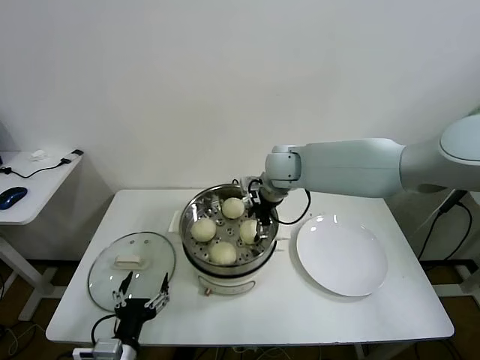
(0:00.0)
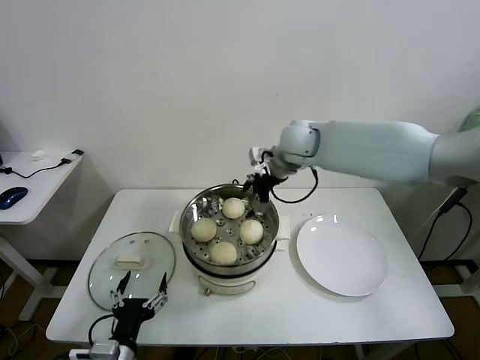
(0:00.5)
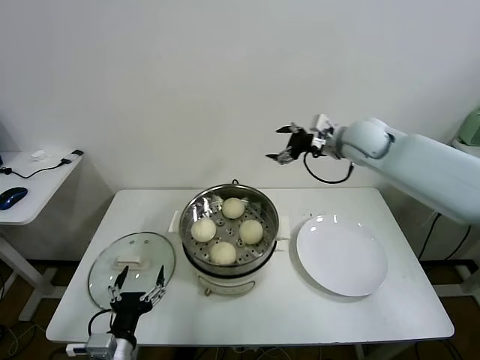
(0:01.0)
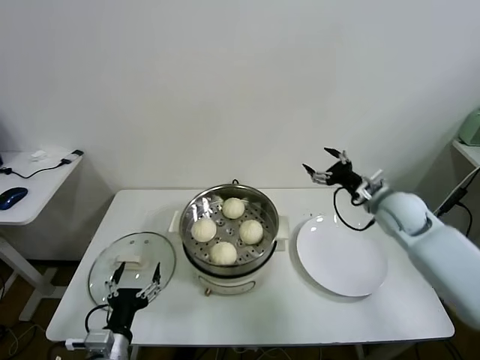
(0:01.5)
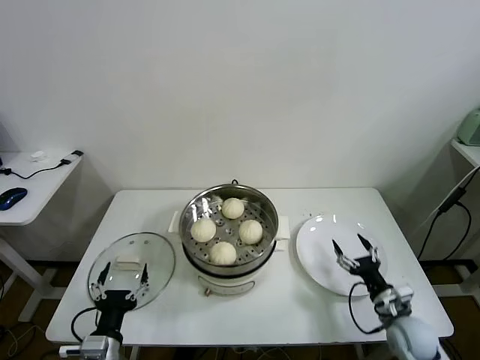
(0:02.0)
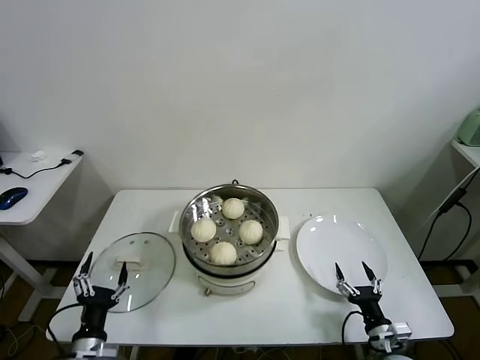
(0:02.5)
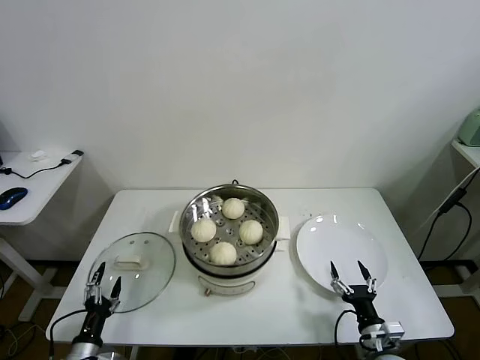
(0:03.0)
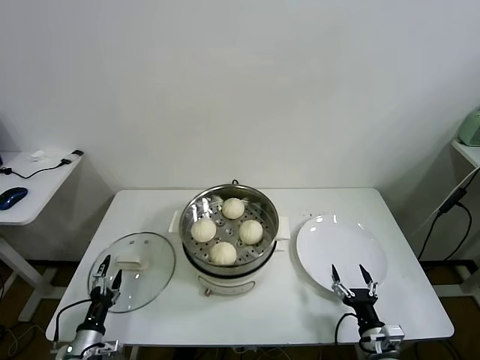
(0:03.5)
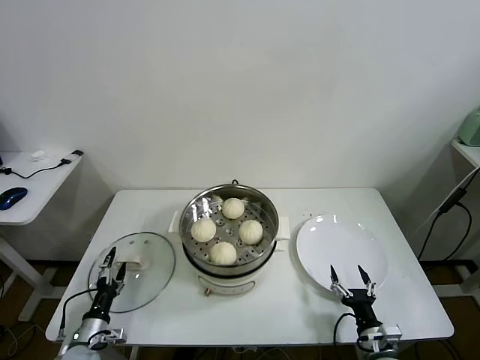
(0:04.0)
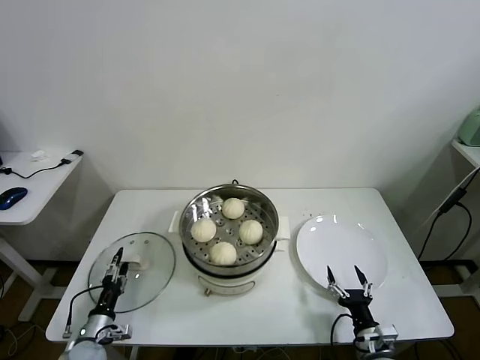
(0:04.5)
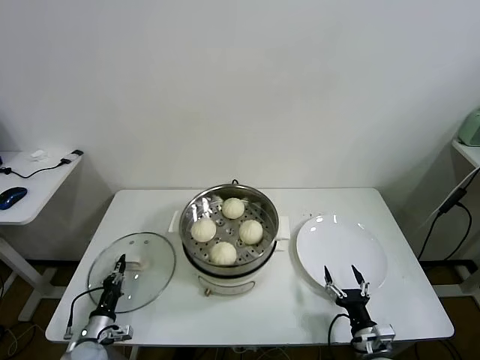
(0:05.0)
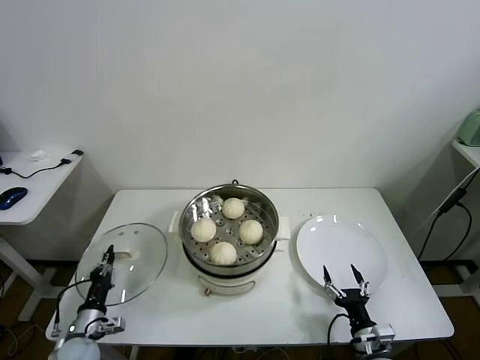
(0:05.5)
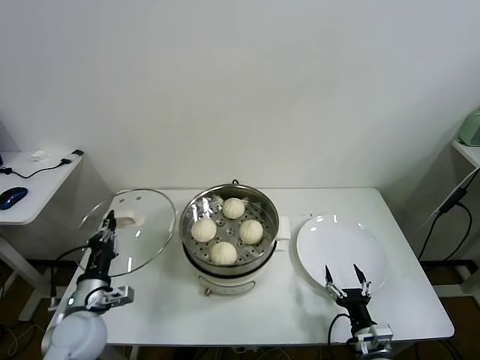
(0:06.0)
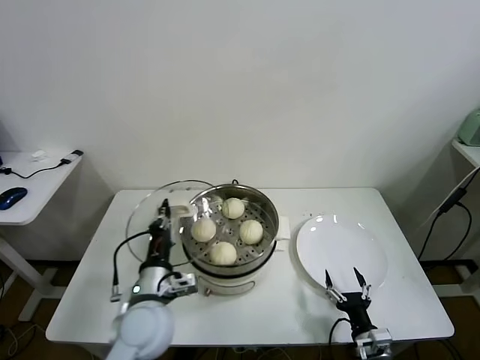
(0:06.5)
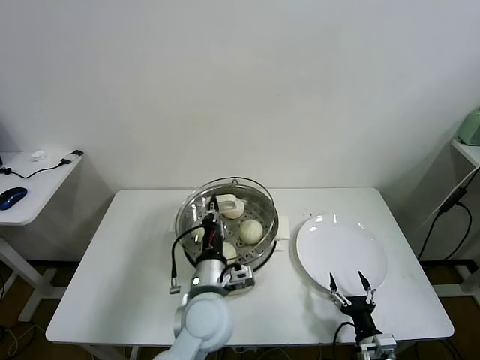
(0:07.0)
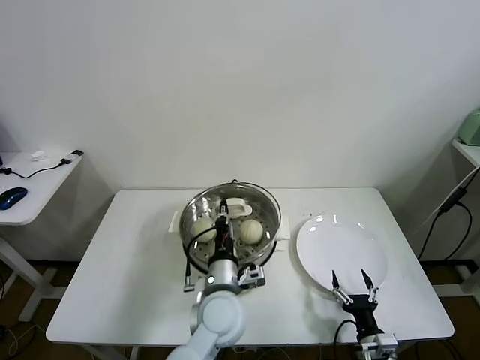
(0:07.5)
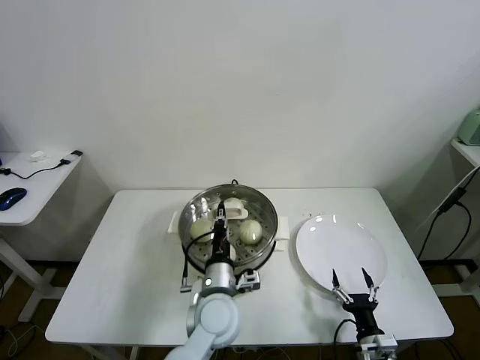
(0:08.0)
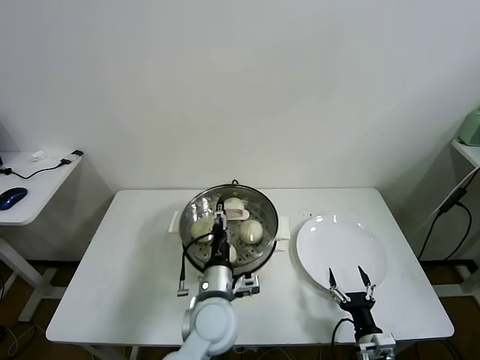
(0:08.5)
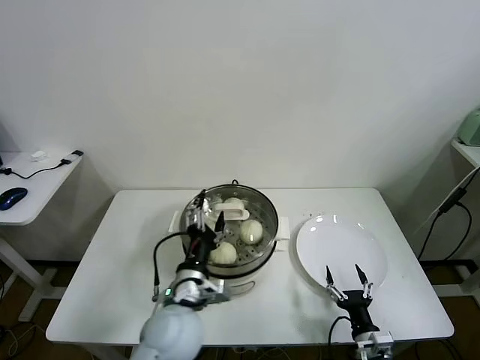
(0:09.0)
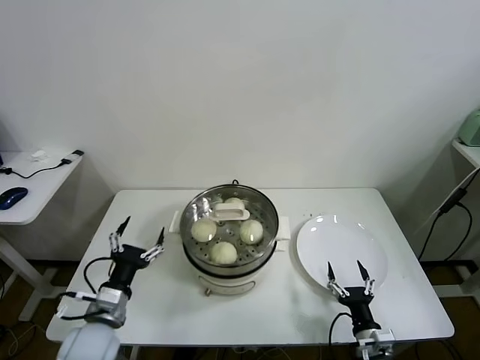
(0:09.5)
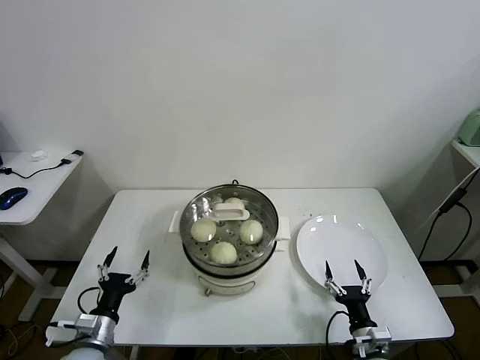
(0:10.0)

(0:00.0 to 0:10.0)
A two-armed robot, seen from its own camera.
Task of the whole recording: take steamed baozi put them in steamer.
Step, 0:00.5 - 0:05.0: Grasp the pot lid with left gripper.
Step, 0:05.5 - 0:08.0: Place the pot lid on the steamer with left gripper.
0:00.0 - 0:02.0: The right gripper travels downward, to the right and backward by some 50 cm.
0:02.0 - 0:04.0: The left gripper goes approximately 20 cm downward, to the left and forward. Meanwhile the right gripper goes roughly 10 cm backward and to the left.
0:04.0 - 0:06.0: The left gripper shifts some 15 cm upward, and closes its fingers.
0:06.0 - 0:08.0: The left gripper travels to the right by approximately 30 cm.
0:08.0 - 0:10.0: The left gripper travels to the left by approximately 30 cm, and opens its fingers.

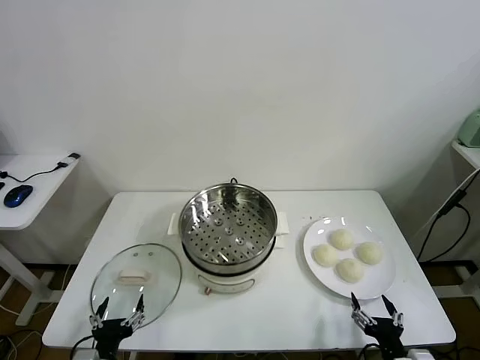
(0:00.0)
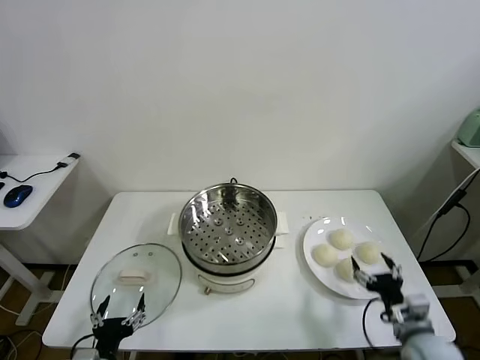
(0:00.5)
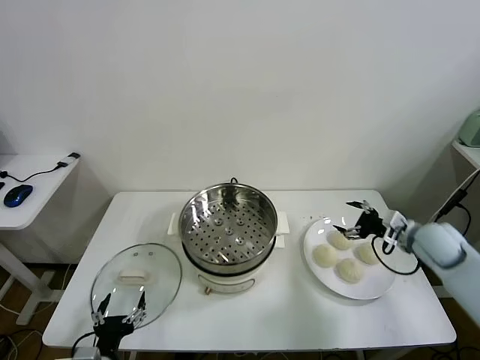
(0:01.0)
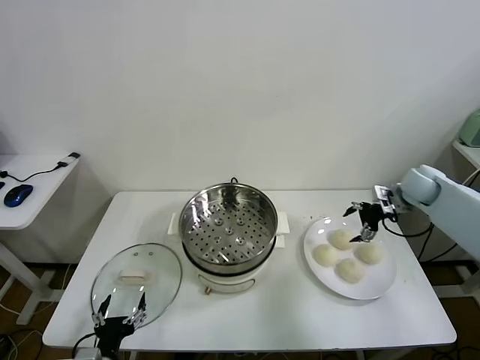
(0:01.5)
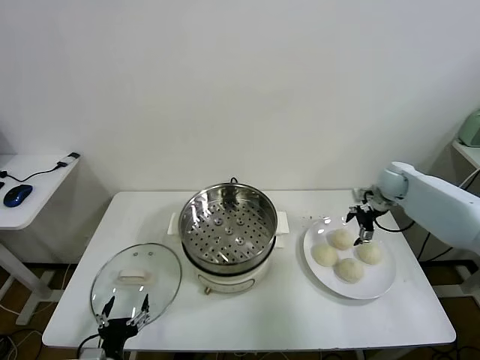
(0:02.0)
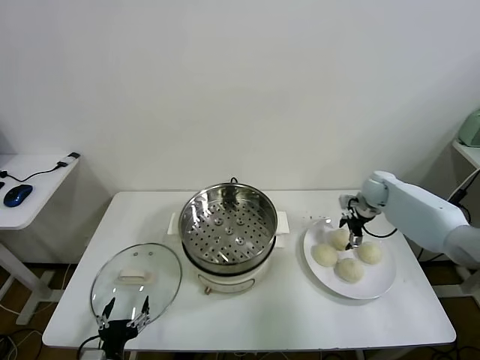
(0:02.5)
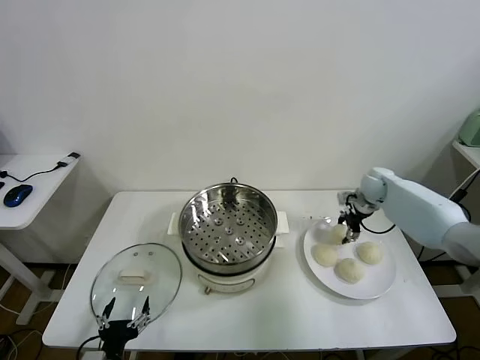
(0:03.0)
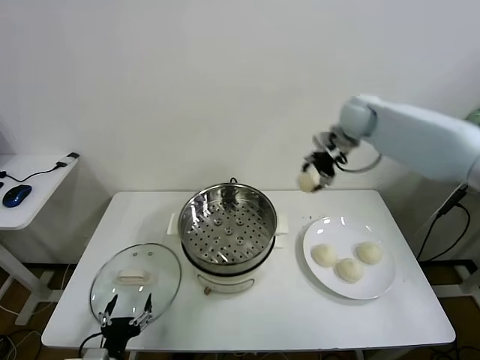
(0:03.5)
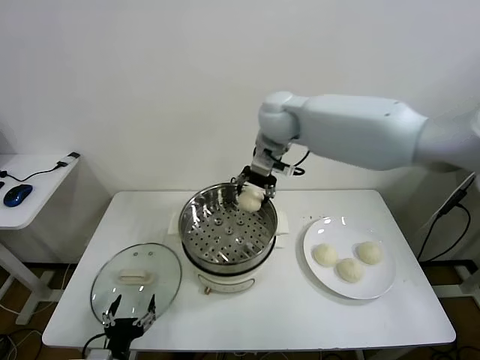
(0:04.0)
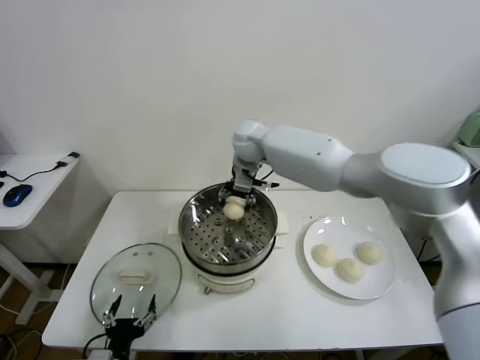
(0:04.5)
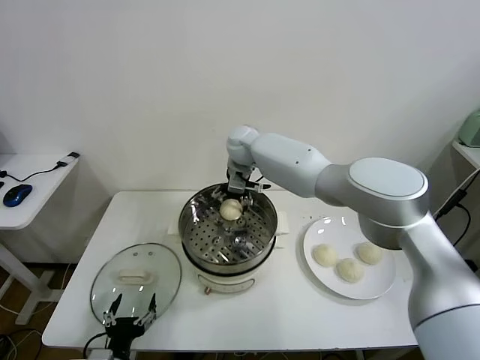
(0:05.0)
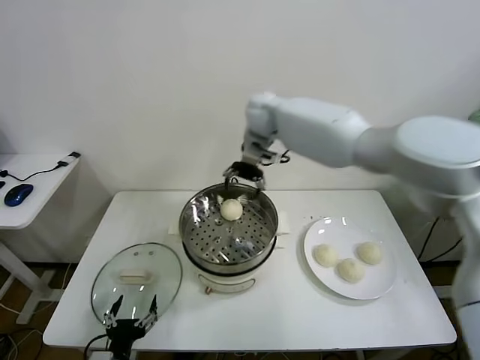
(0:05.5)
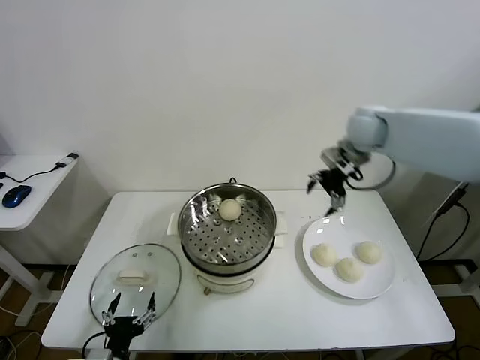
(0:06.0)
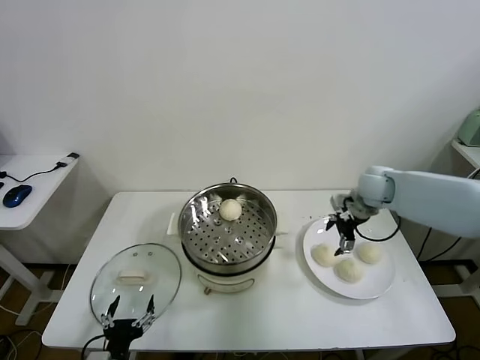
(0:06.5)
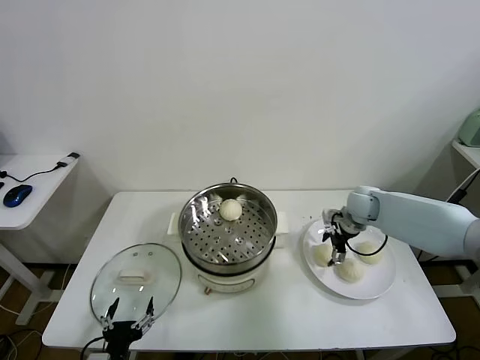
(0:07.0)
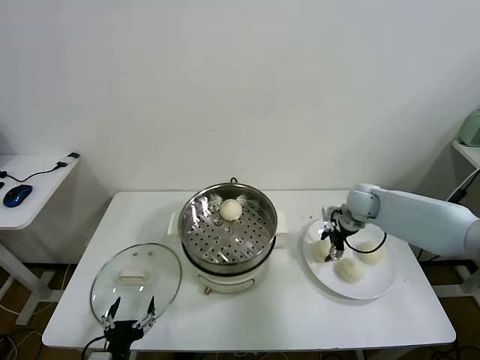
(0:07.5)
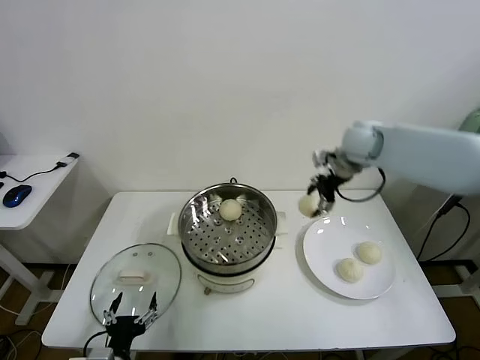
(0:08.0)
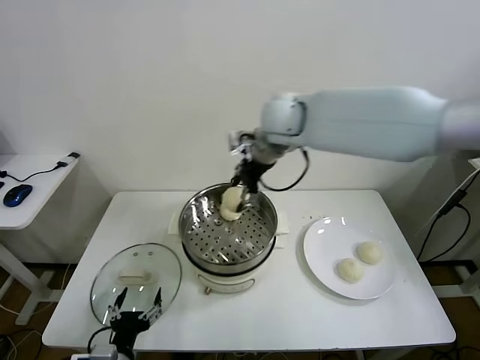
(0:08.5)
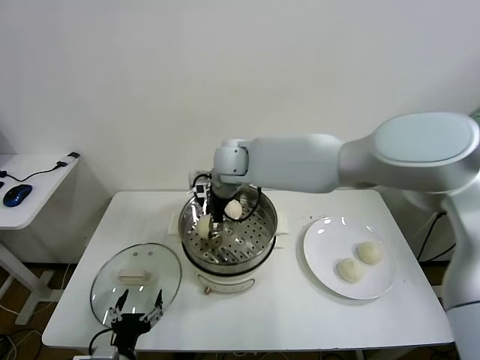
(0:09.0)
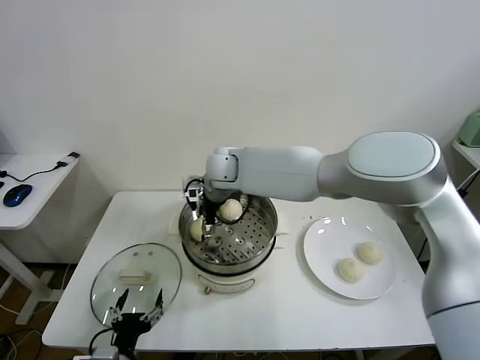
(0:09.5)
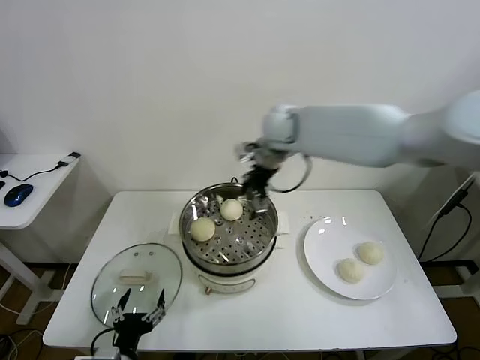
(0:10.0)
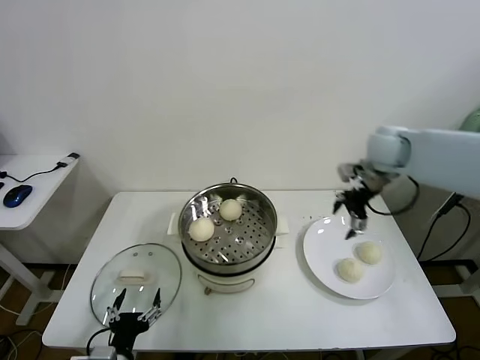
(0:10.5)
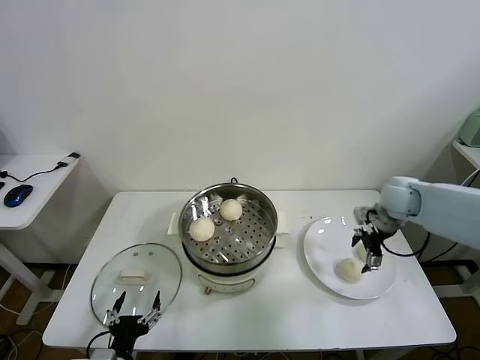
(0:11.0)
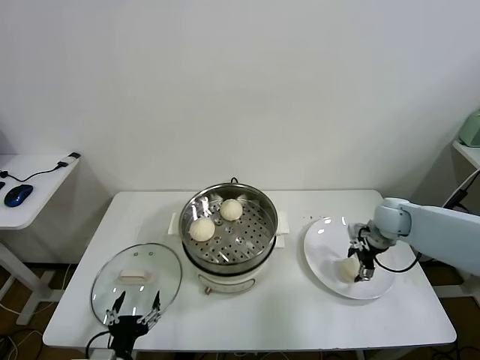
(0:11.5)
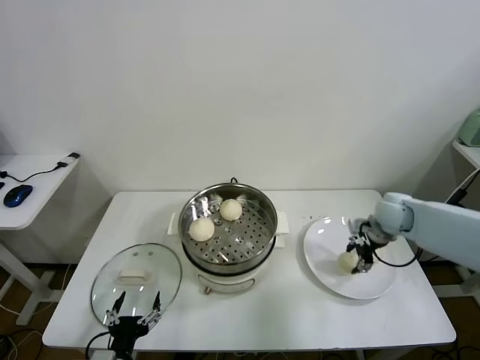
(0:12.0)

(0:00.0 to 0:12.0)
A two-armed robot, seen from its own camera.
Task of the whole recording: take steamed baozi put them in steamer.
Step, 0:00.0 - 0:03.0: Grasp the baozi in the plate with right gripper.
Step, 0:03.5 - 0:05.0: Place the baozi on the steamer with right gripper.
Step, 0:05.5 - 0:07.5: Grasp the baozi in the plate with right gripper.
Step, 0:08.0 - 0:09.5: Place the baozi on the steamer with right gripper.
Step, 0:10.0 - 0:11.5: Grasp the baozi in the plate with right gripper.
0:02.0 - 0:04.0: The right gripper travels to the left and upward by roughly 40 cm, and closes its fingers.
0:04.0 - 0:06.0: The right gripper is displaced to the right by about 25 cm, and opens up.
0:06.0 - 0:08.0: The right gripper goes roughly 5 cm to the left, reaches approximately 20 cm downward, then returns, and closes its fingers.
0:08.0 - 0:10.0: The right gripper shifts about 10 cm to the left, and opens.
0:10.0 - 0:12.0: The right gripper goes roughly 30 cm to the right and downward, and closes up.

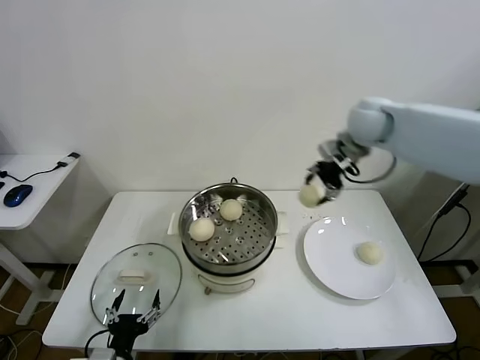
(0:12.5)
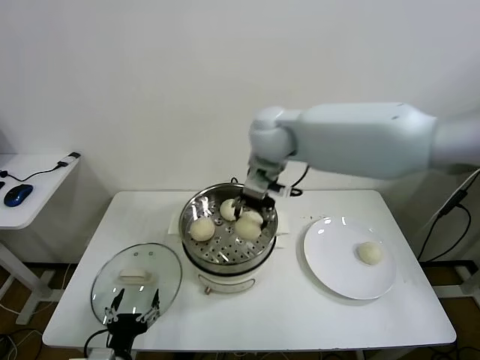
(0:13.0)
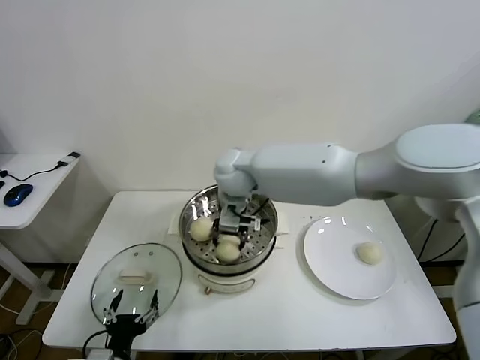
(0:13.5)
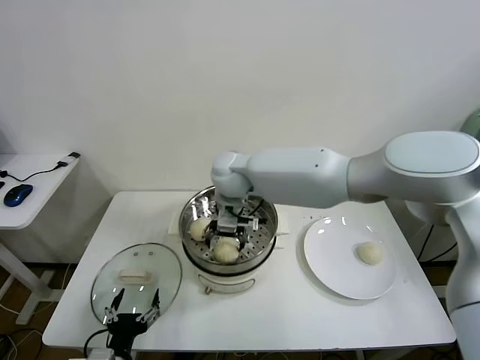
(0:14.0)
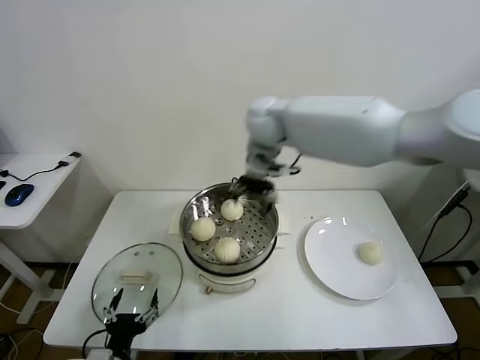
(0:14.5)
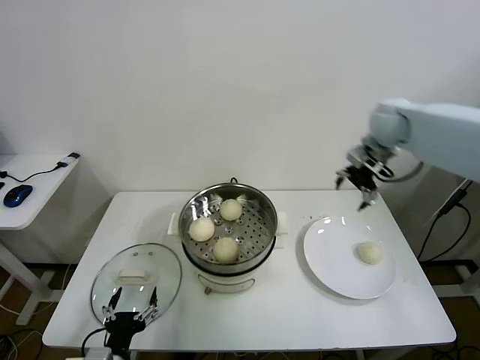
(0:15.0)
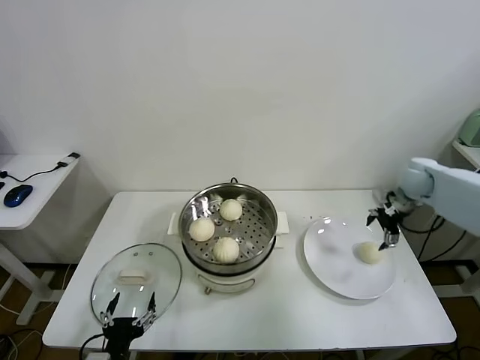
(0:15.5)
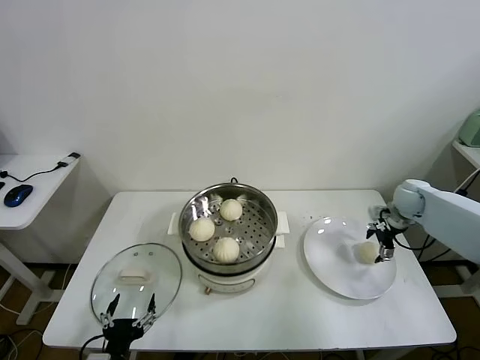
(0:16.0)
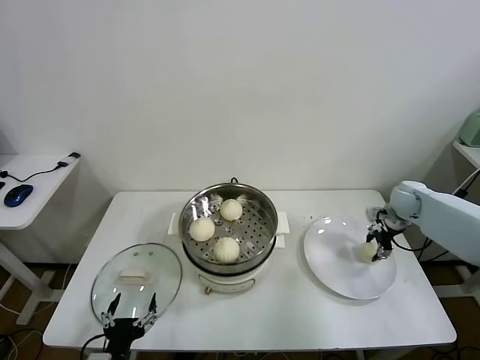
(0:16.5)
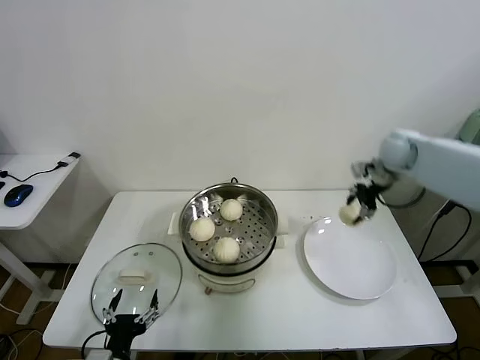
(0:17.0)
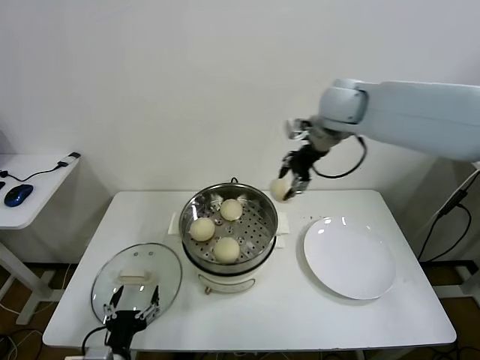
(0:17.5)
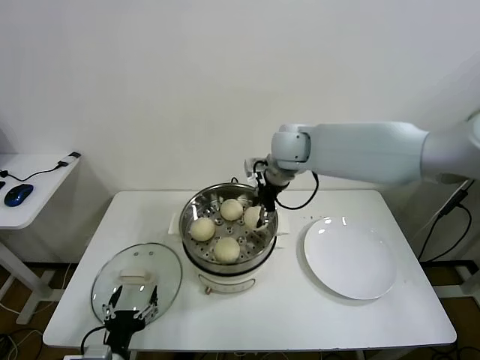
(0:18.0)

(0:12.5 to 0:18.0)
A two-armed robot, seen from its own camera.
Task of the whole recording: take steamed baozi put them in steamer.
Step, 0:12.5 - 0:14.0: Place the baozi on the steamer with right gripper.
Step, 0:14.5 - 0:16.5: Grasp the baozi in the plate with right gripper.
0:12.5 - 0:14.5: The right gripper goes approximately 15 cm to the left, and opens.
0:14.5 - 0:16.0: The right gripper moves to the right and downward, roughly 40 cm.
0:16.0 - 0:18.0: The right gripper moves to the left and upward, approximately 40 cm, and closes its fingers.
